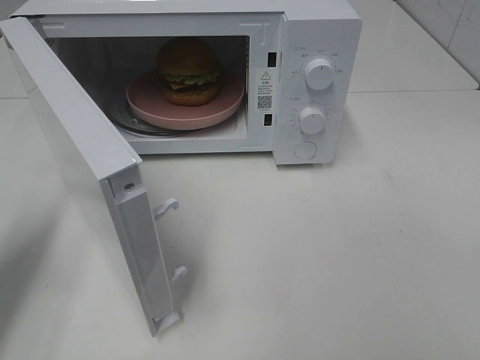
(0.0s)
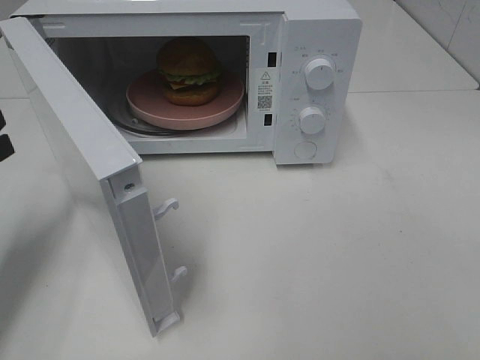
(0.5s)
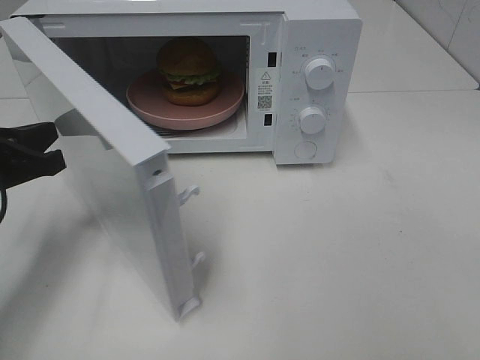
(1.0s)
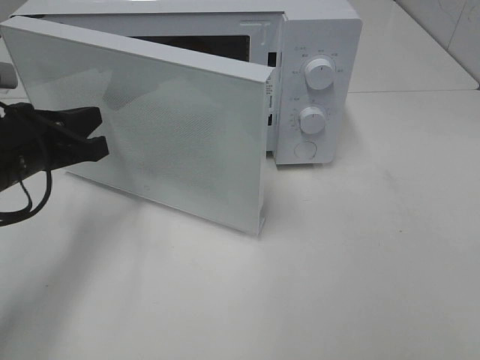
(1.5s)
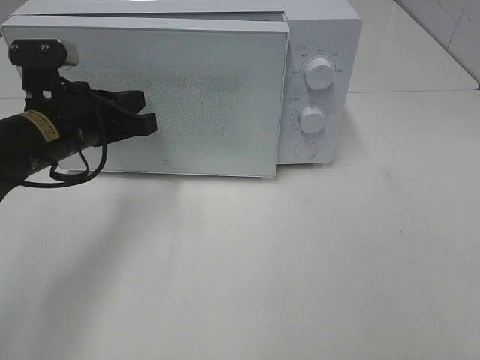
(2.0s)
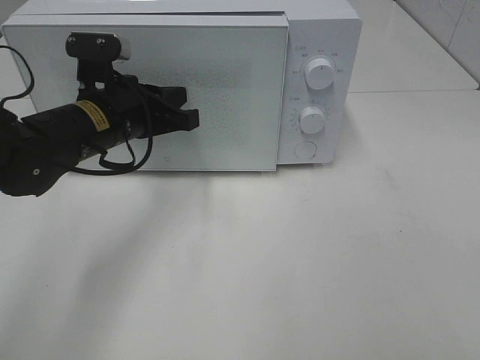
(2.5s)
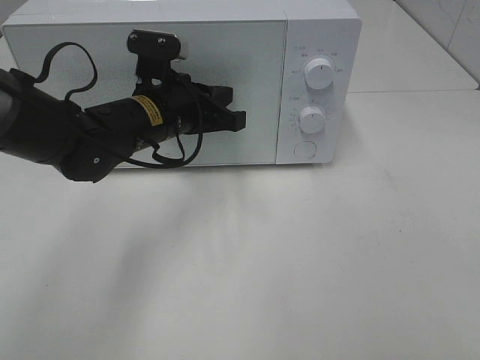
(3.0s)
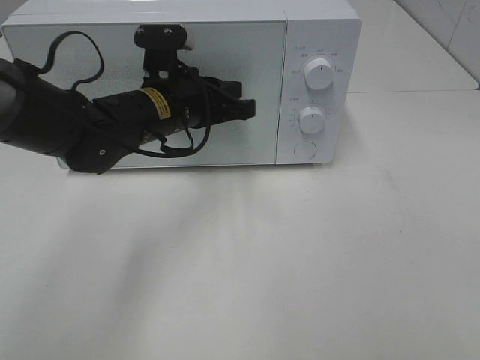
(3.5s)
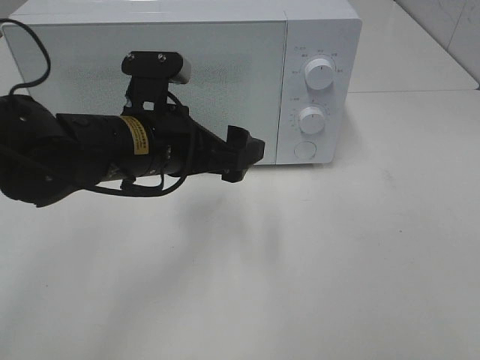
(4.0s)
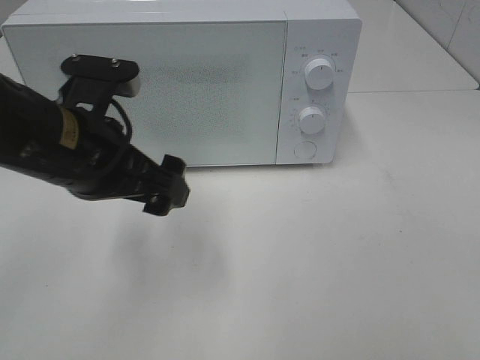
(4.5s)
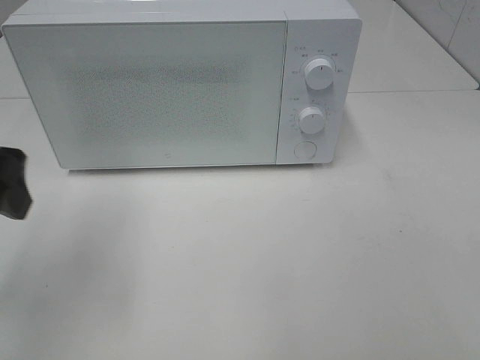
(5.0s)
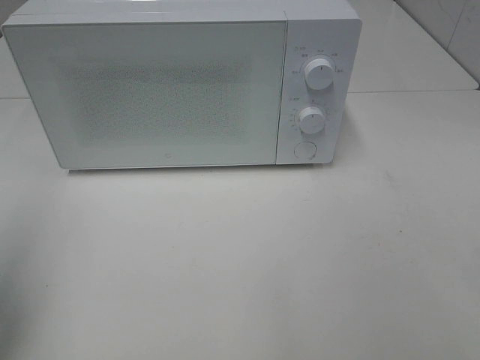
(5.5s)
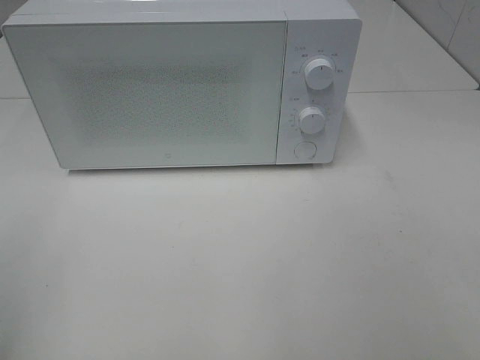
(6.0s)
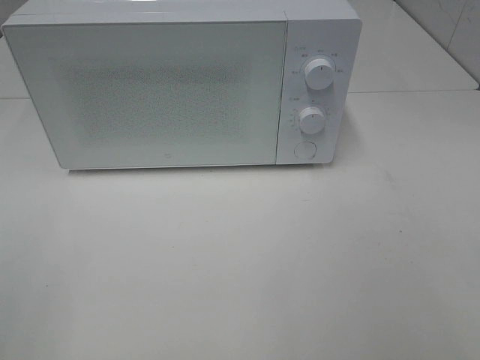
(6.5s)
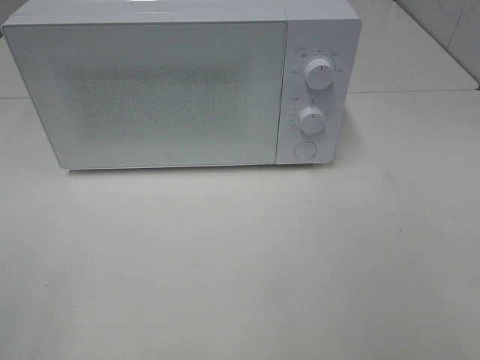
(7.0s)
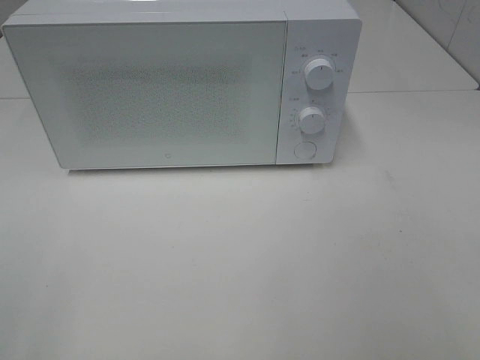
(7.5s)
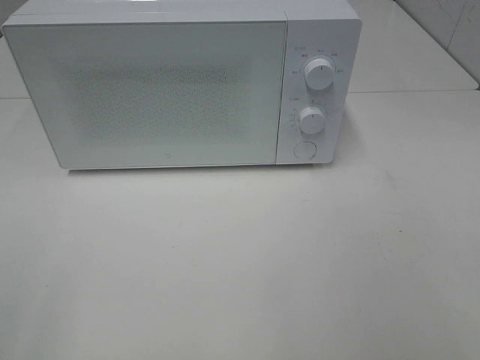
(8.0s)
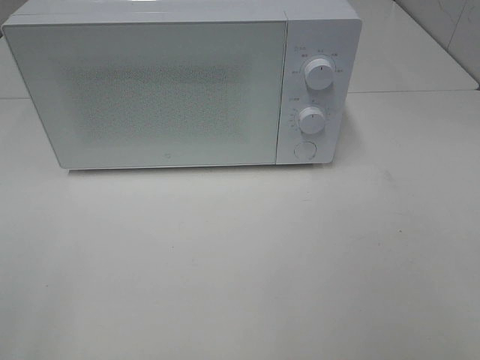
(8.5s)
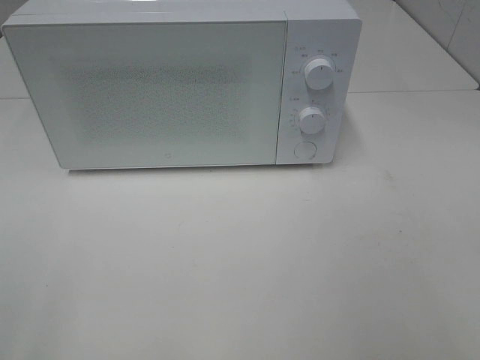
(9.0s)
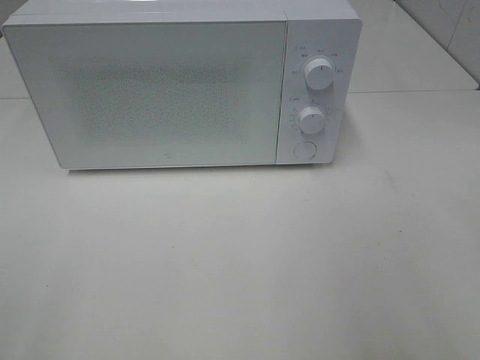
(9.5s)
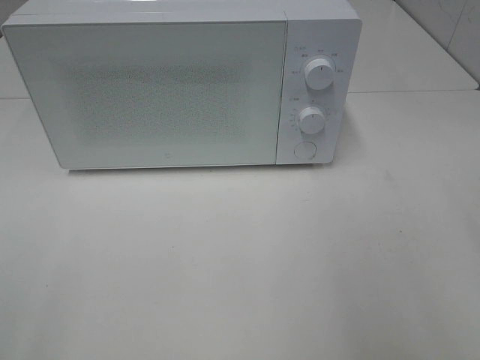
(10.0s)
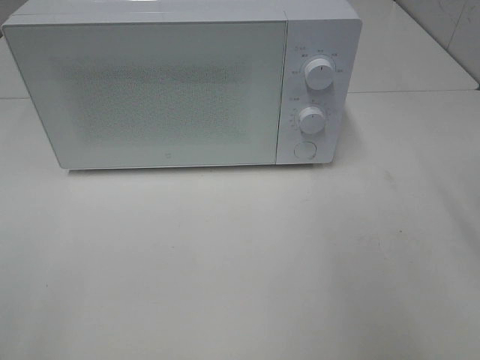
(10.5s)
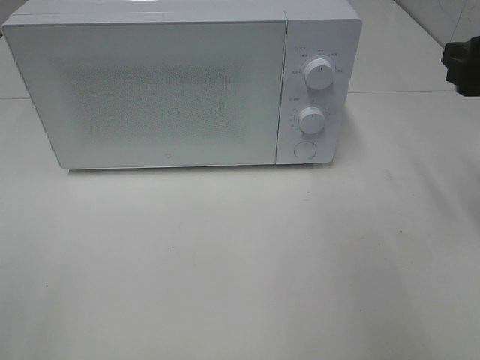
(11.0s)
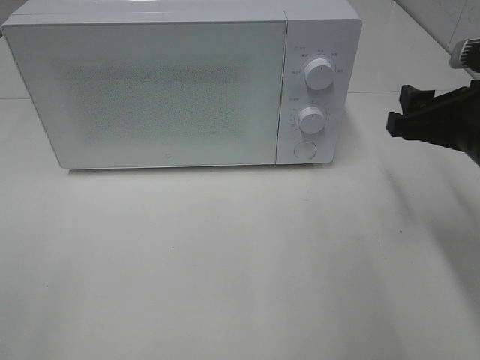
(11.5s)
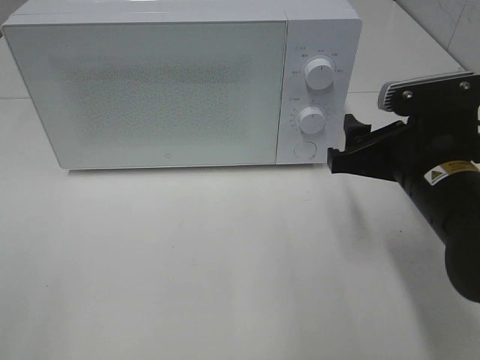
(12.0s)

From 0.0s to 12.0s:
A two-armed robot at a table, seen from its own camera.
Task of the whole recording: Heat the burger.
Step, from 0.0s to 3.5s: Left hand: close the microwave door.
From 0.0s to 2.0s: The left gripper moves to the right and forward, about 15 cm.
From 2.0s to 4.0s: The left gripper travels to the right by roughly 10 cm, and opens.
From 4.0s to 6.0s: The left gripper shifts about 35 cm to the left, backward and upward.
From 10.0s to 12.0s: The right gripper travels downward, to the left and forward by about 20 cm.

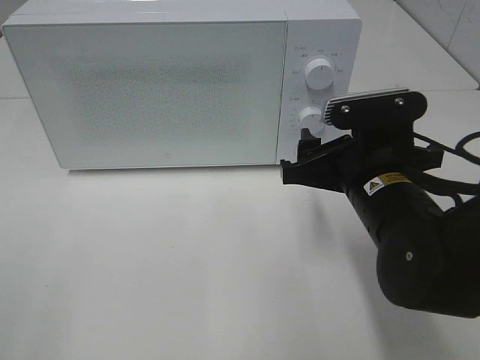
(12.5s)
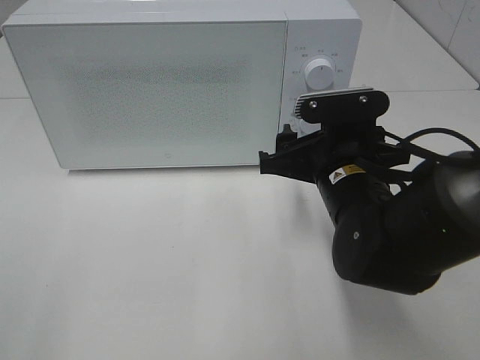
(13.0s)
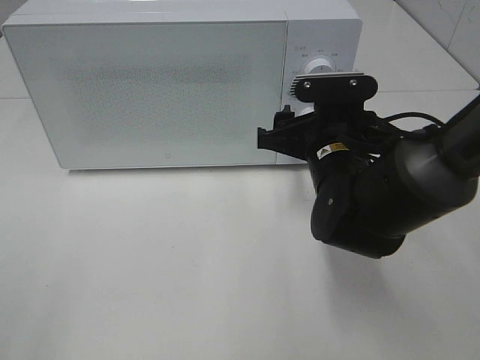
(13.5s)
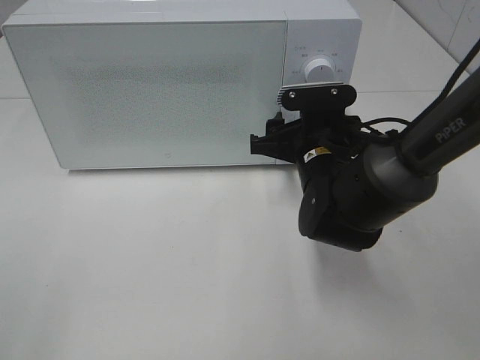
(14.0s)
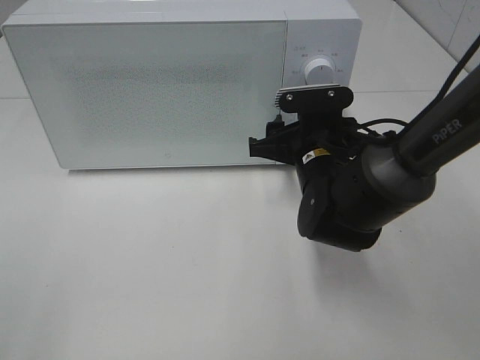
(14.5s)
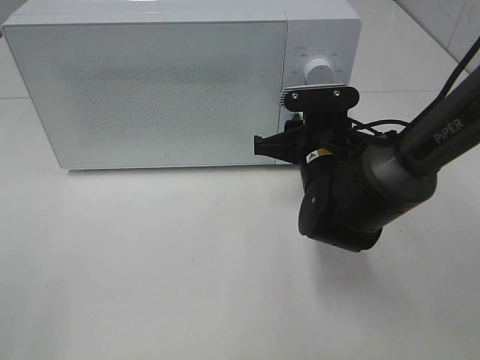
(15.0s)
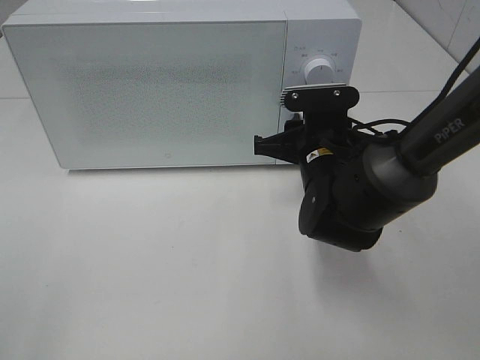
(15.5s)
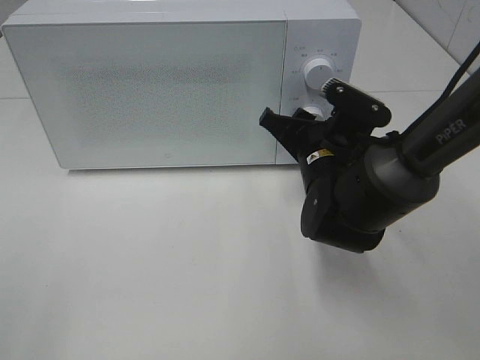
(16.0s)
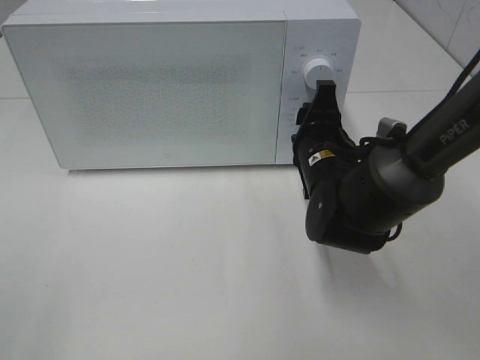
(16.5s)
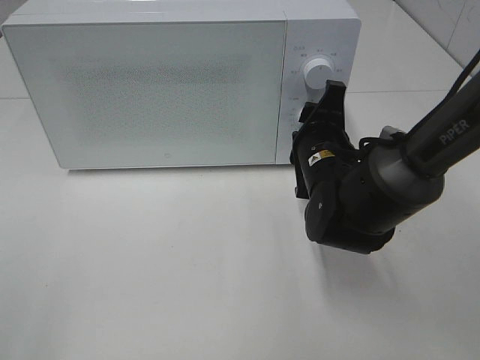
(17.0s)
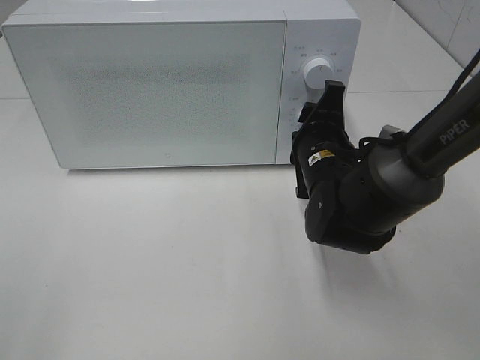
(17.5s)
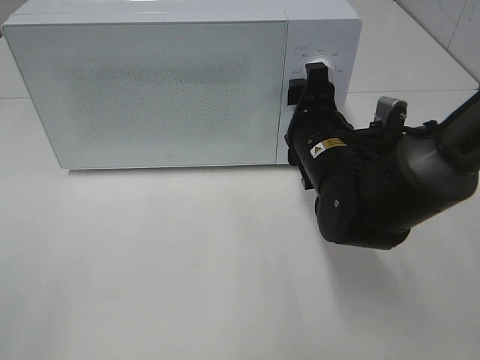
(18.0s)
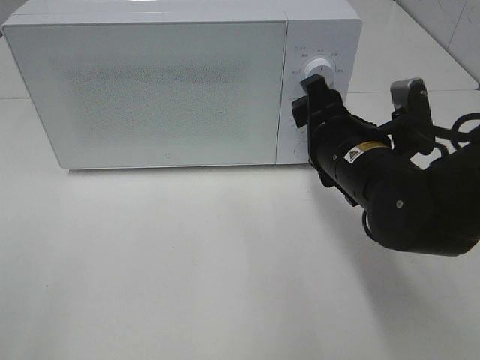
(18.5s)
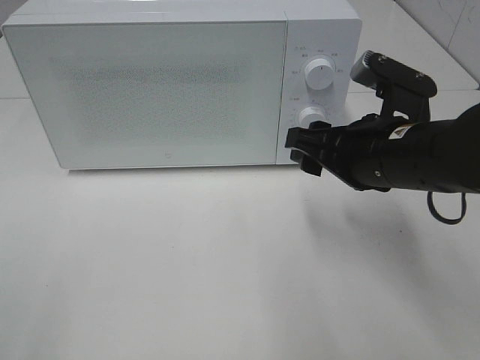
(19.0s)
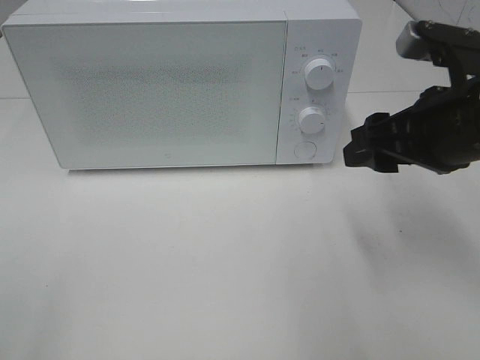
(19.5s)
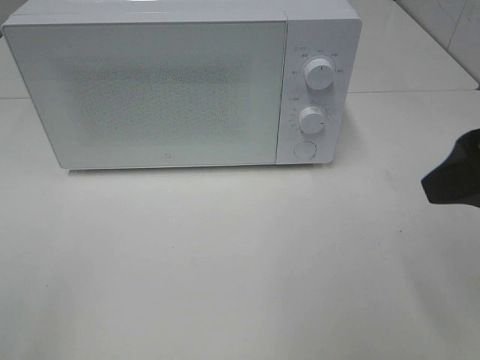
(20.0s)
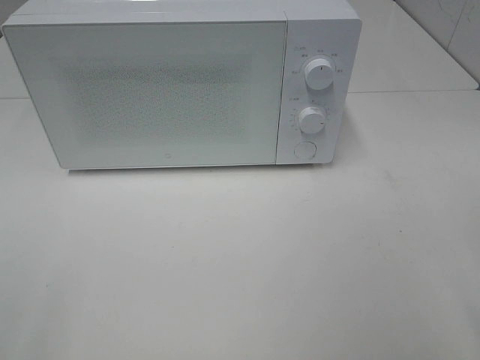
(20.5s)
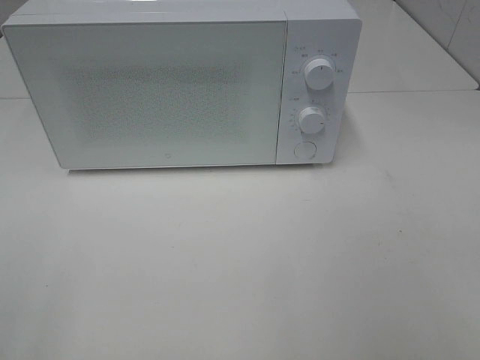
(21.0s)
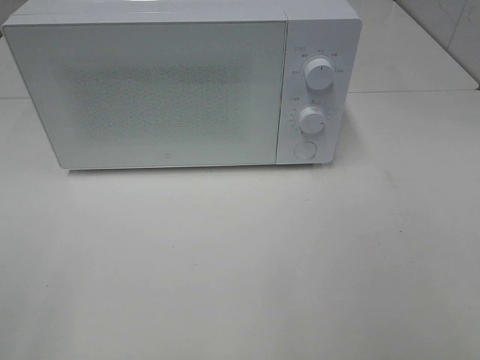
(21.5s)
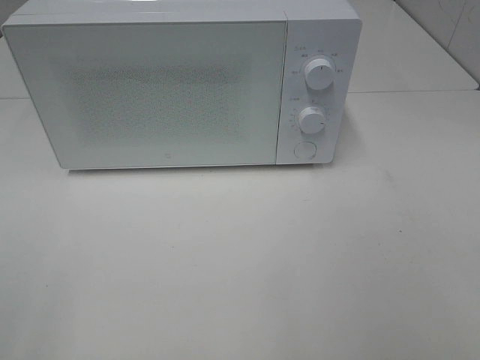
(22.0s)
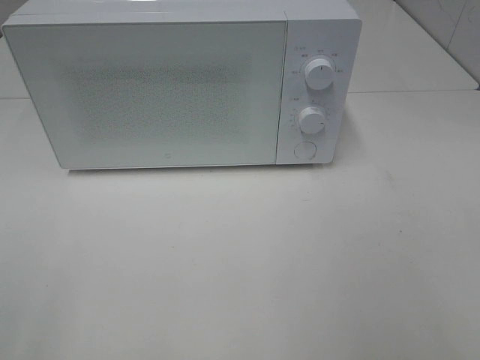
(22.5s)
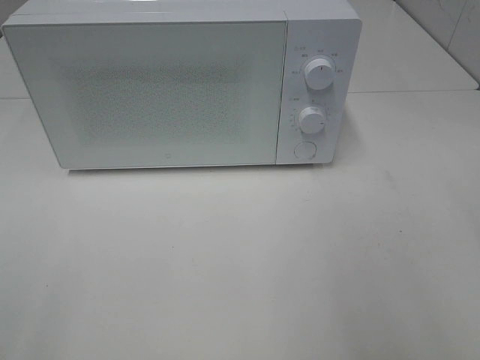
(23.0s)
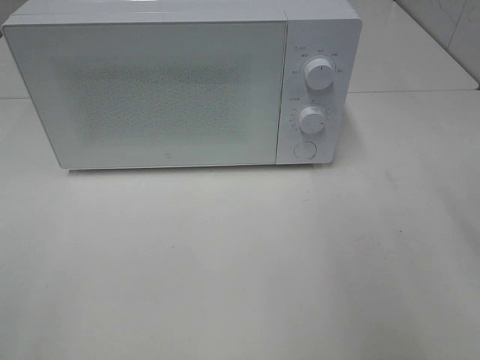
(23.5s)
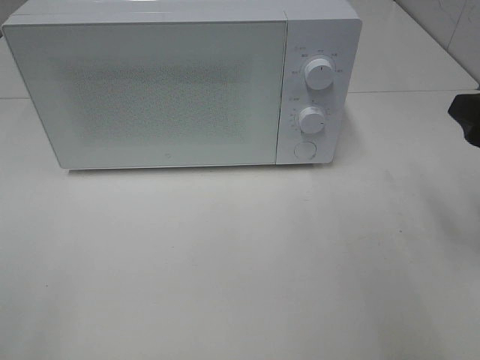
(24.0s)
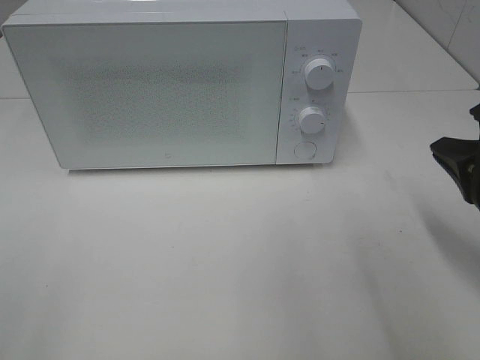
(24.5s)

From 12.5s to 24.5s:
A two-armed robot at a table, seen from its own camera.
Task of the whole recording: Heat the burger.
Step, from 12.5s to 17.5s: Right hand: twist timer button.
From 12.5s to 14.5s: The right gripper is displaced forward by about 10 cm.
From 16.5s to 18.5s: The right gripper ends up roughly 5 cm from where it was.
From 18.5s to 20.5s: The right gripper moves backward, to the right and upward, about 25 cm.
From 22.5s to 24.5s: The right gripper moves forward and downward, approximately 20 cm, and closes its fingers.

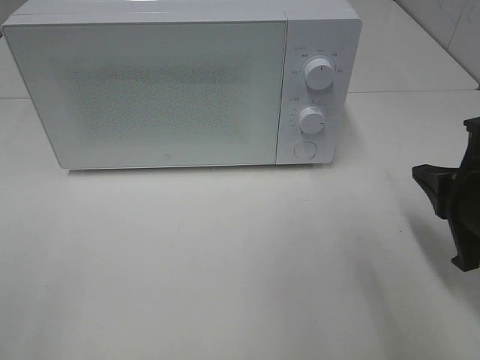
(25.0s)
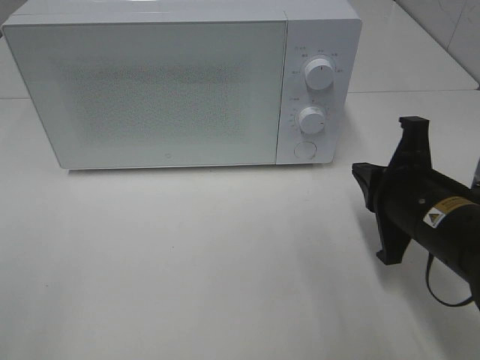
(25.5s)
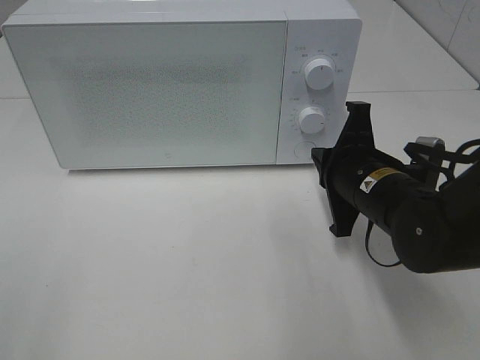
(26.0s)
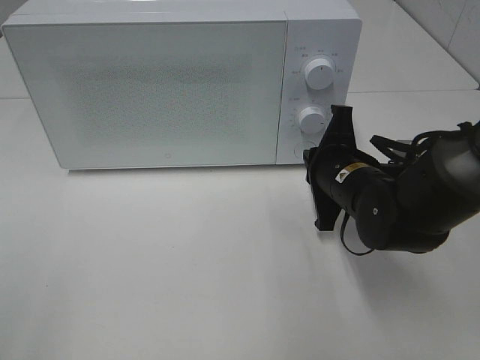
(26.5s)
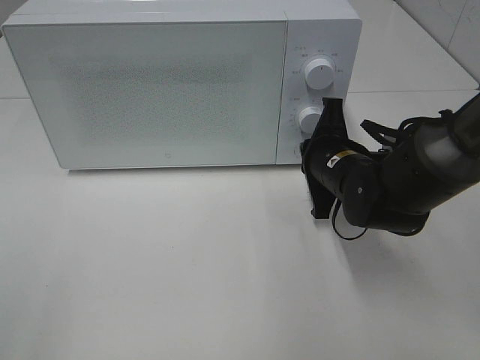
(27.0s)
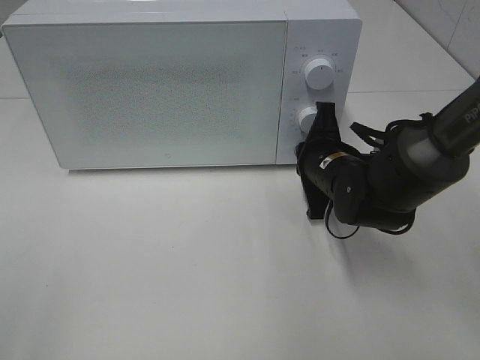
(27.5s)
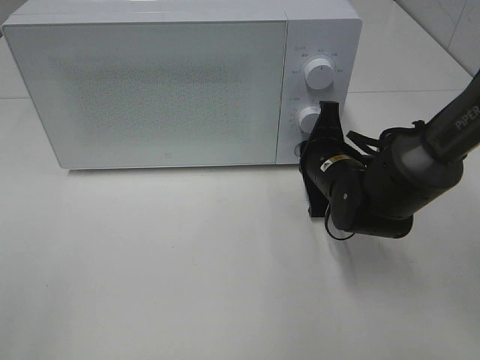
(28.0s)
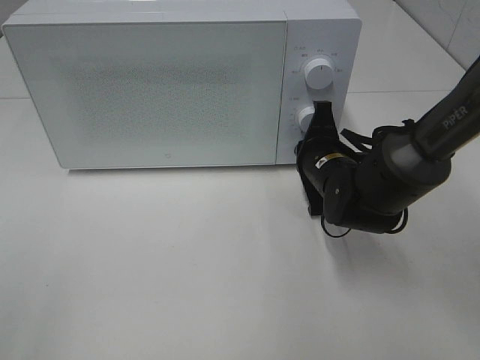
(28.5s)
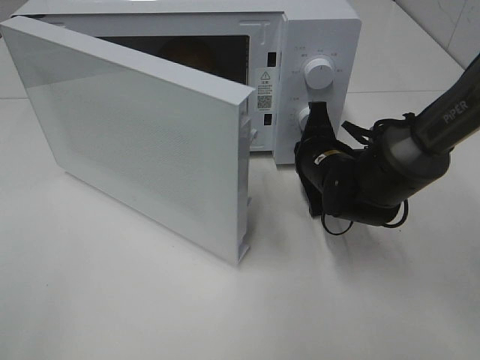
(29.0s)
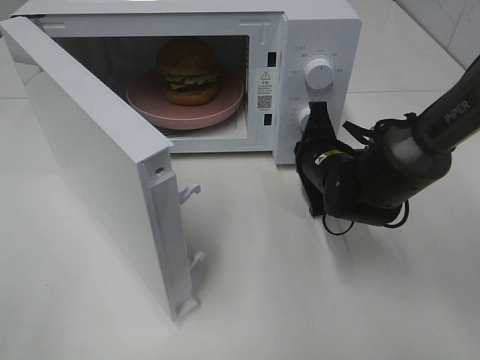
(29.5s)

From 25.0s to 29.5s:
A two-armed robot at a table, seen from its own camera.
Task of the whole recording: Heat the burger.
From 25.0s to 27.0s: The right gripper heads forward and to the left, covering some 15 cm.
